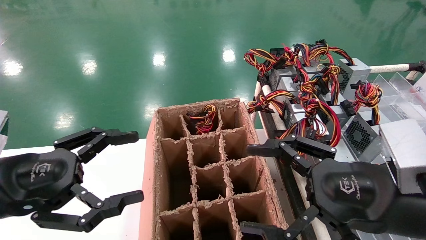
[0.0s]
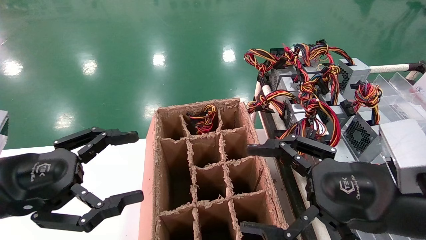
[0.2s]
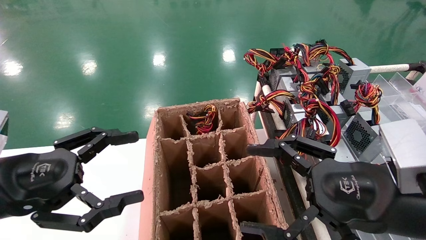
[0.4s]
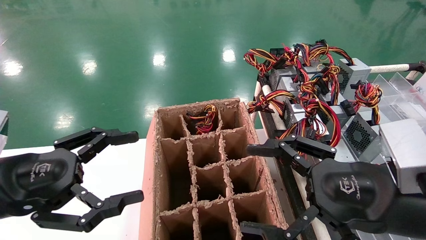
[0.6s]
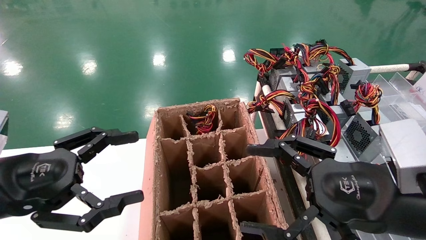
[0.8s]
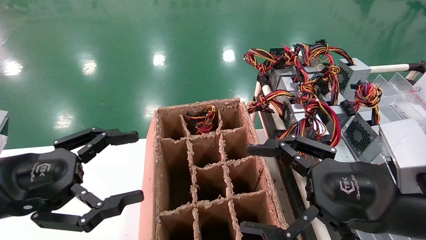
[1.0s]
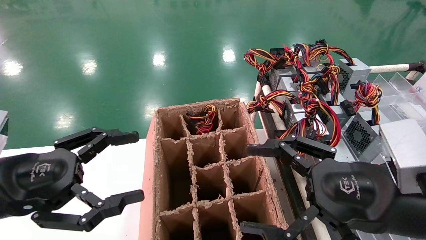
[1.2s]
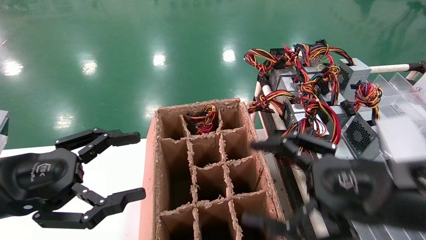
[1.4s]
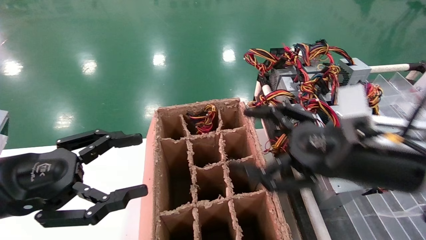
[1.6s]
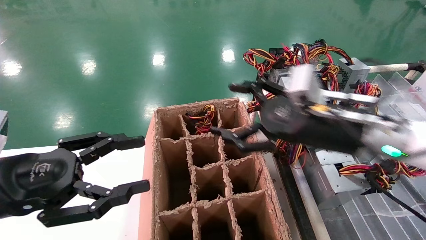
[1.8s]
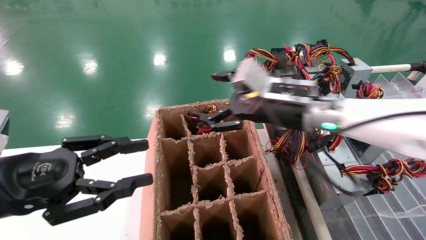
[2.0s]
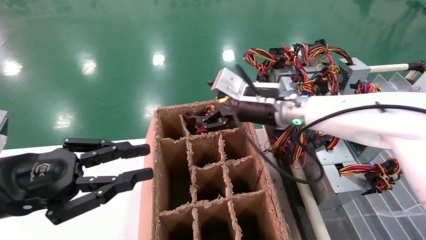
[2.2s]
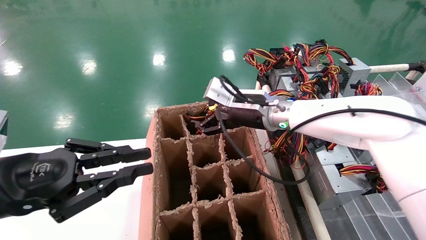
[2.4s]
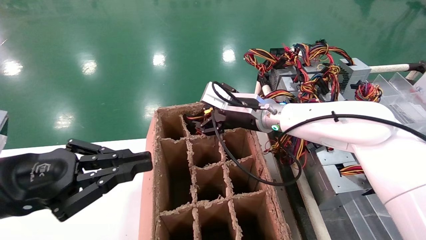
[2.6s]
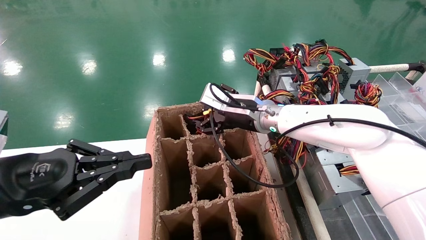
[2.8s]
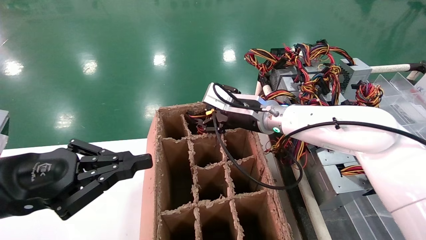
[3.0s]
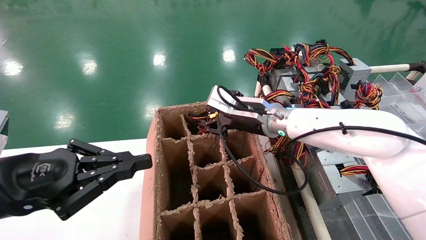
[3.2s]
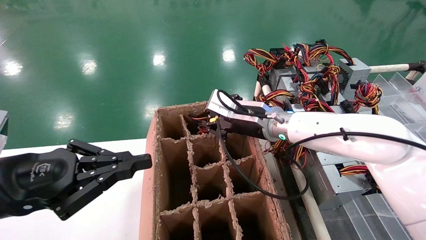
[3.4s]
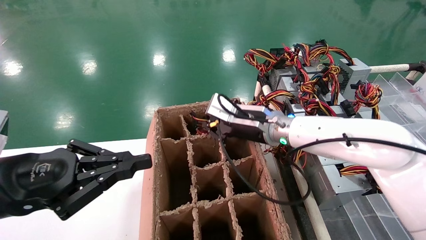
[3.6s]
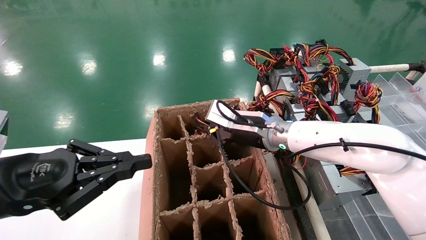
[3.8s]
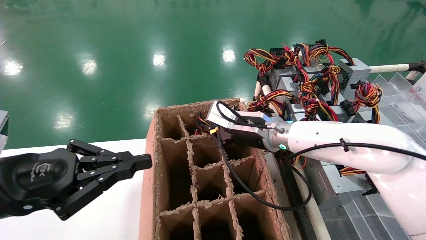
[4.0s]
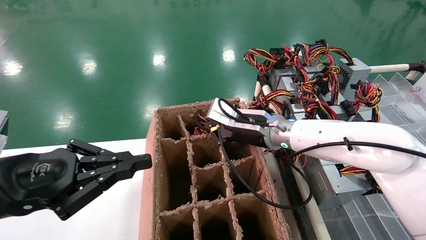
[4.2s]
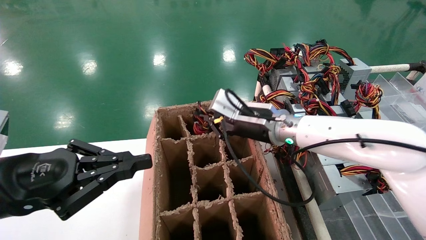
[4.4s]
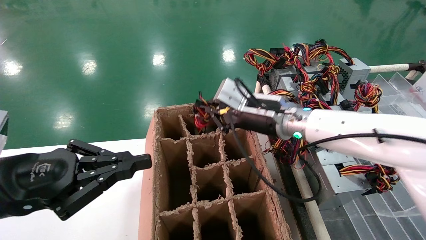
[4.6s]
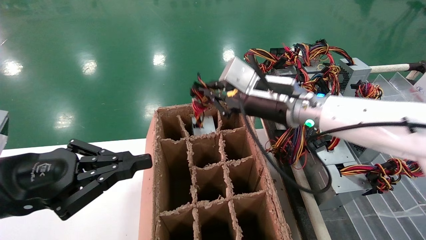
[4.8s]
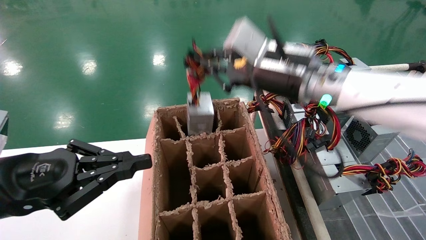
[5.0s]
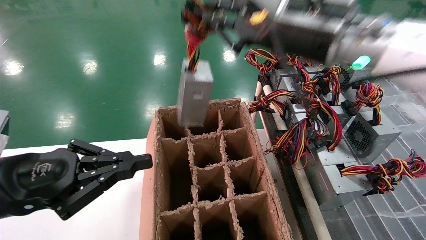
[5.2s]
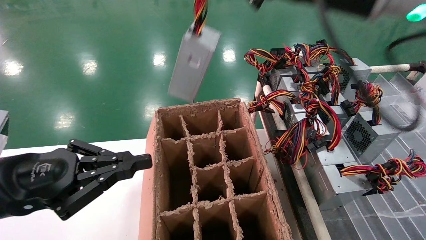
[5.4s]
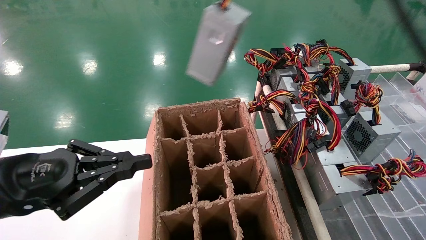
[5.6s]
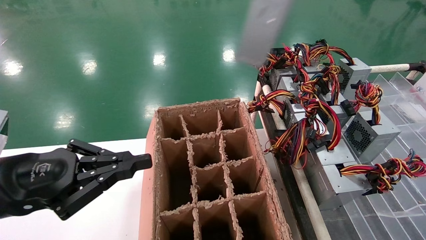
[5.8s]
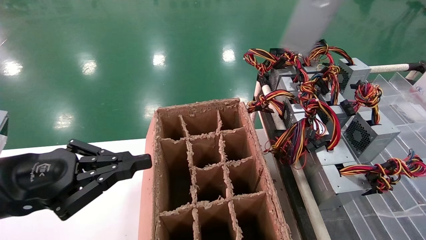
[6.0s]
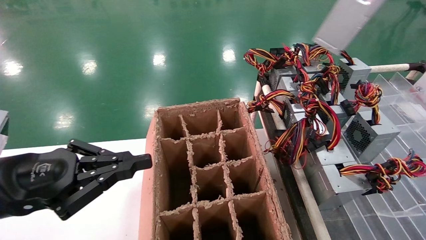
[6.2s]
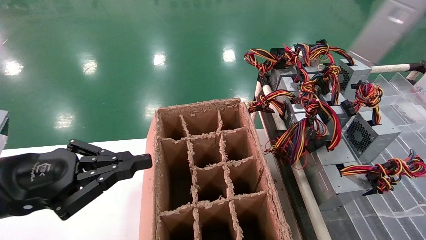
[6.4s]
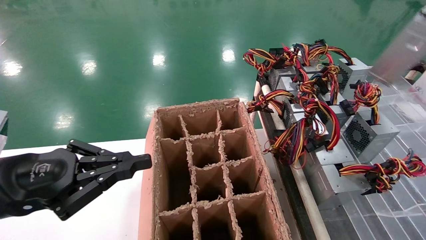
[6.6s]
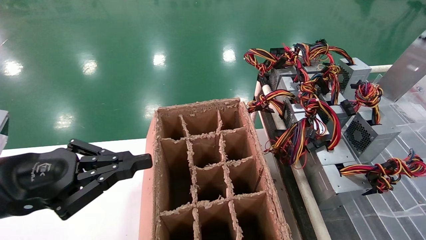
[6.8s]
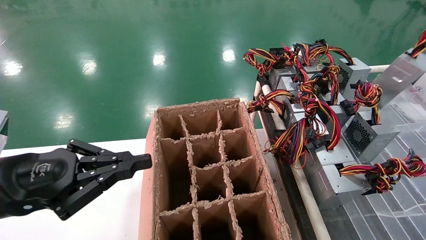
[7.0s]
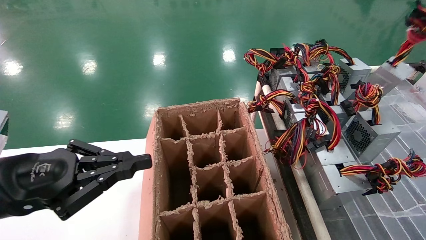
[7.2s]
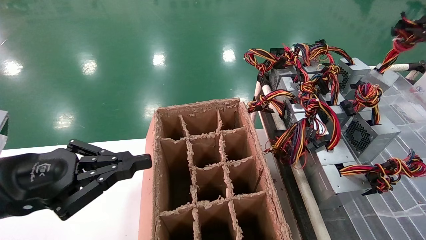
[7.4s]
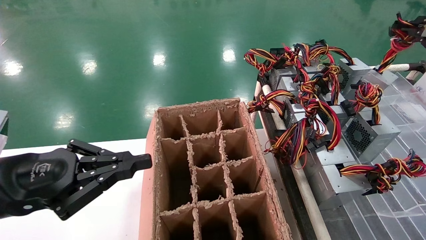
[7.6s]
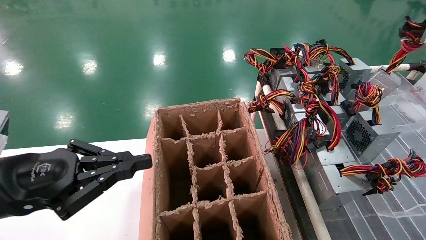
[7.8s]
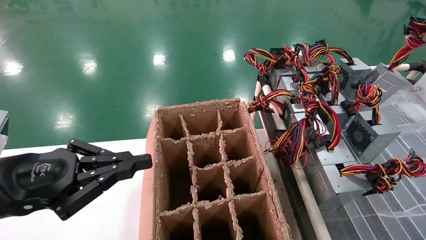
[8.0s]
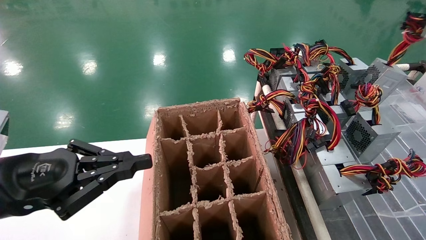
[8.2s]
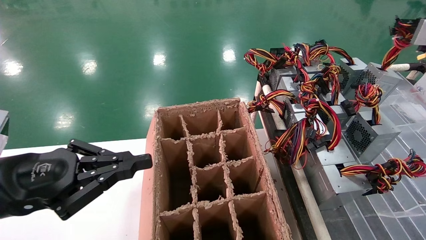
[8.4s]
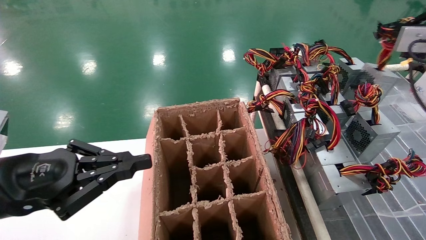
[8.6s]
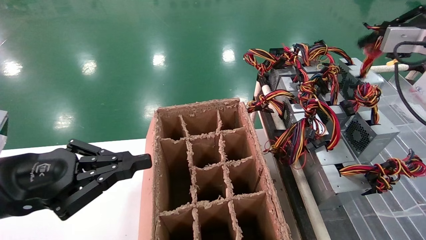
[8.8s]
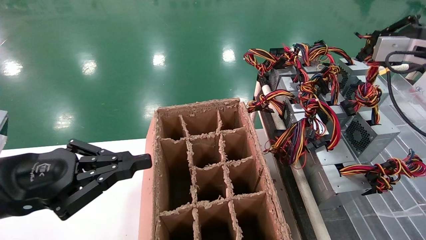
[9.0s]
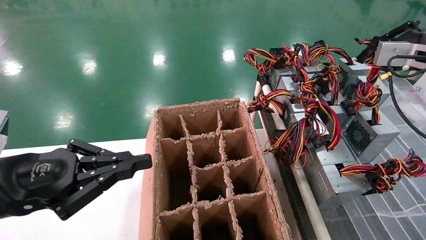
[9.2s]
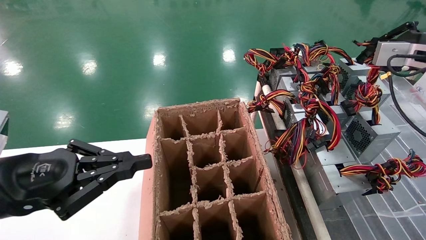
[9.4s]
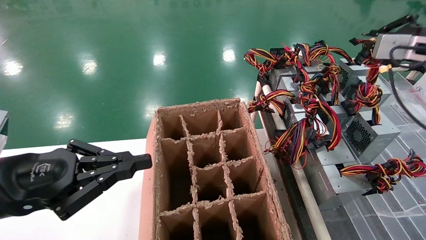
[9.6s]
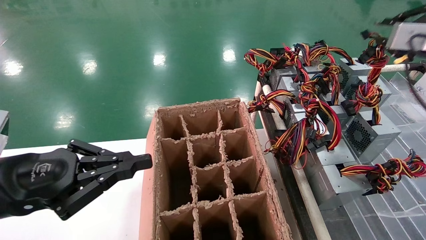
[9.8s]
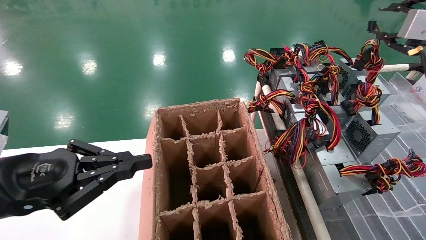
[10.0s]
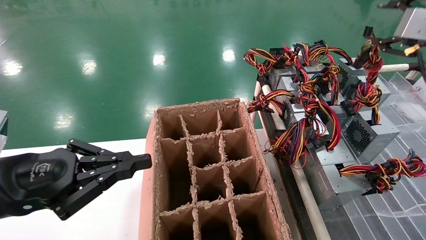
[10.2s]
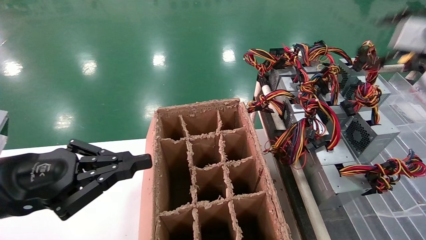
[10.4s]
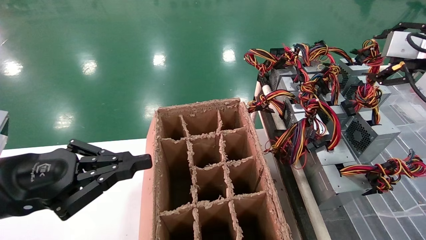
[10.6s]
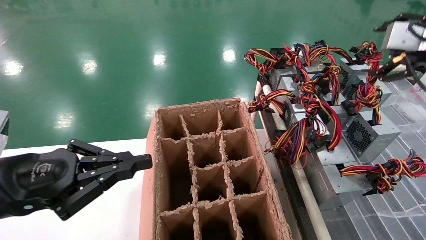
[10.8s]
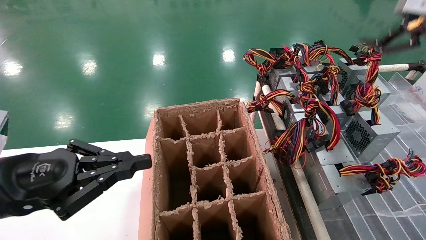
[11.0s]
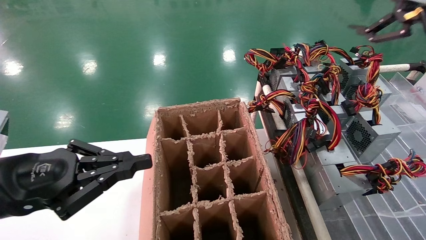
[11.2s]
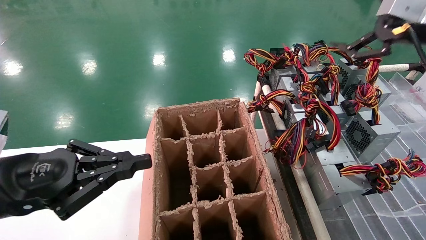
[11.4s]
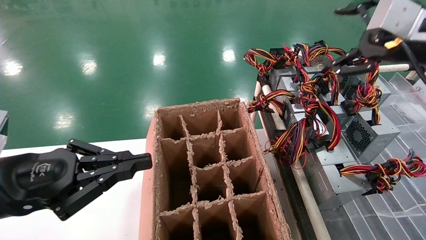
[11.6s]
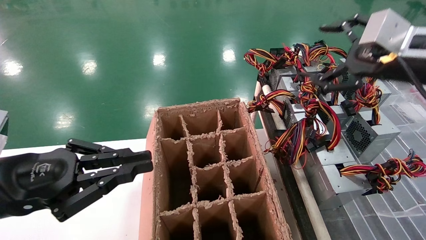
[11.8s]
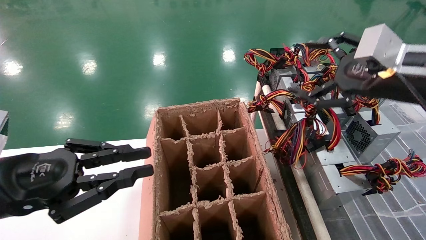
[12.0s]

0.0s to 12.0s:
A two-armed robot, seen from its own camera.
Step, 1.8s to 4.2s: Grab the main unit power supply from the containment box.
Step, 4.4s to 11.0s: Place the main unit power supply in the designated area.
0.0s to 1.6s: The right gripper goes about 10 cm forward.
1.6s to 3.0s: The right gripper goes about 20 cm forward and to the left; the left gripper closes up.
3.0s to 4.4s: The right gripper closes its fingers.
4.4s to 6.0s: The right gripper shifts some 40 cm upward, backward and to the right.
6.0s to 7.6s: The right gripper shifts some 25 cm to the right, forward and downward.
7.6s to 9.0s: The right gripper goes some 5 cm forward.
9.0s to 10.4s: The right gripper opens up.
10.4s to 12.0s: The right gripper is displaced to the left, backward and downward by approximately 15 cm, and opens up.

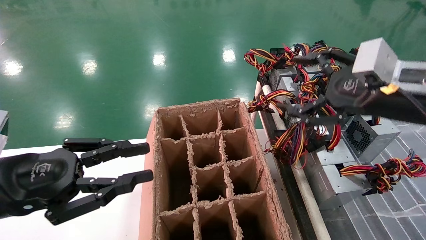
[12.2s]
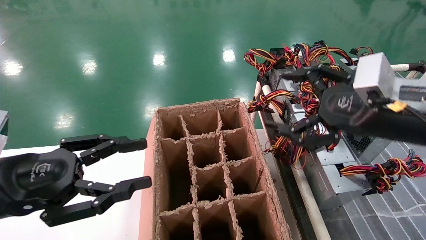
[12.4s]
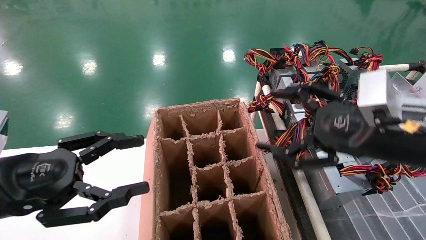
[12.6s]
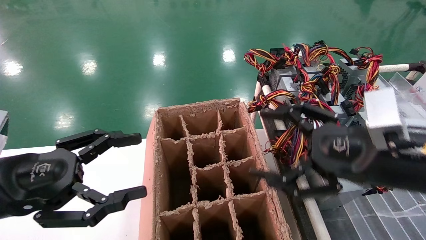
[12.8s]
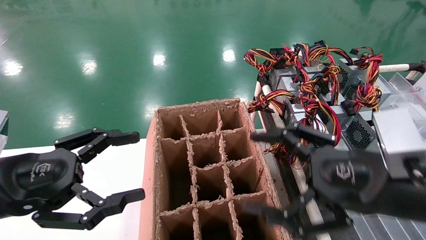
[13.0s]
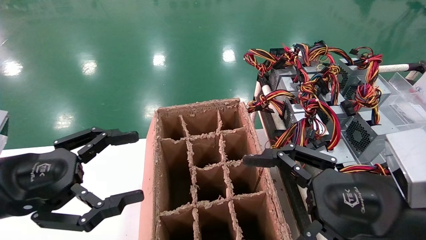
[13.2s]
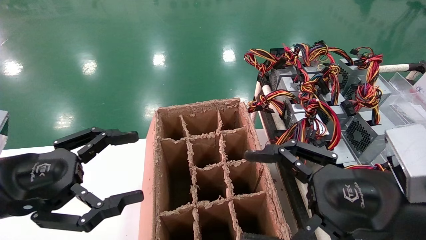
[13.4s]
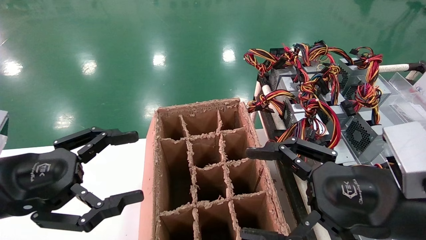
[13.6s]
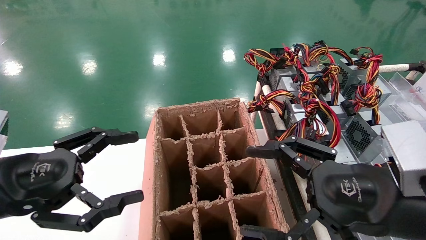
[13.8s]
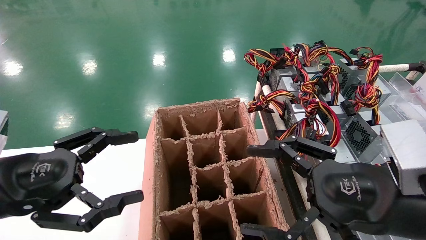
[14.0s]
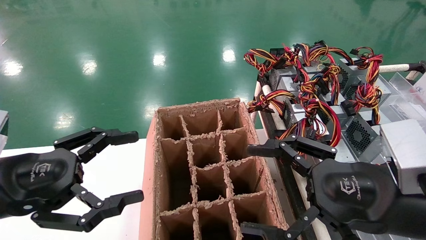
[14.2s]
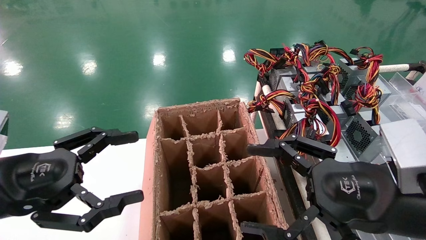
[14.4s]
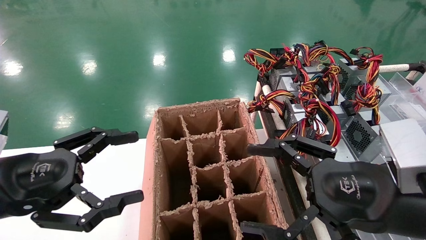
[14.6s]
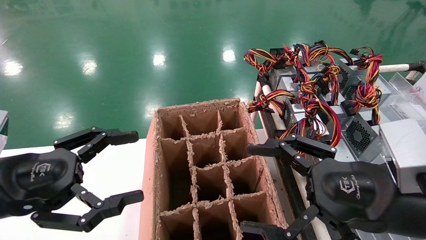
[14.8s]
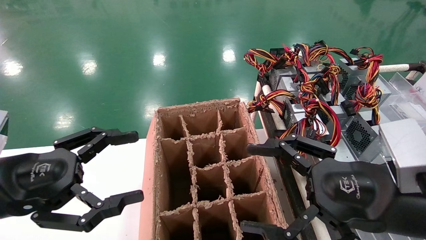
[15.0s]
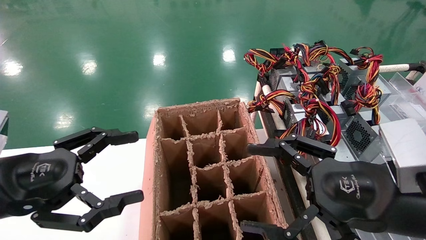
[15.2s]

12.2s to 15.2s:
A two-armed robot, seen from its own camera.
12.2s to 13.8s: The left gripper opens its fingers; the right gripper moves backward, downward and to the left, approximately 15 cm.
13.8s to 15.2s: Neither gripper changes place.

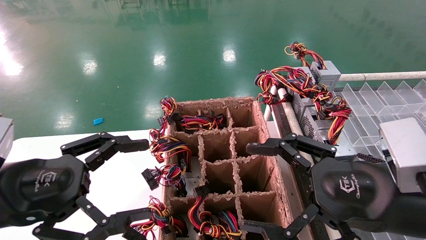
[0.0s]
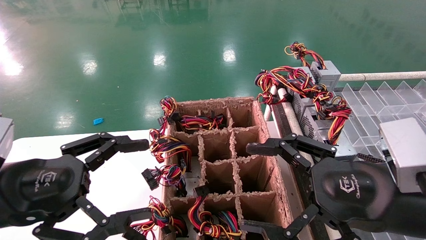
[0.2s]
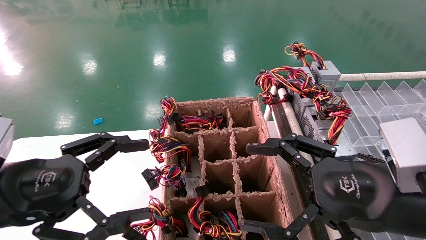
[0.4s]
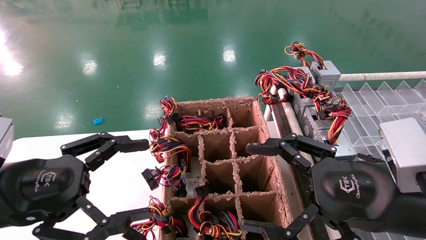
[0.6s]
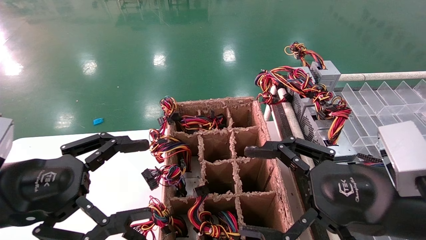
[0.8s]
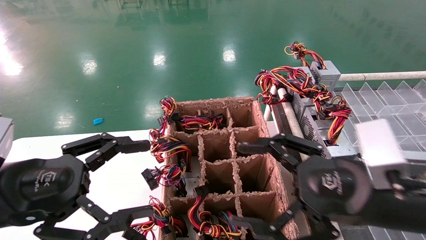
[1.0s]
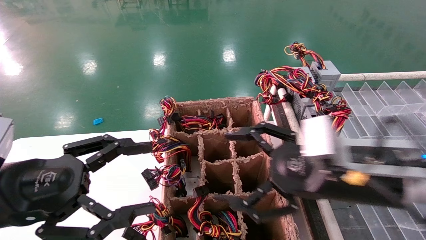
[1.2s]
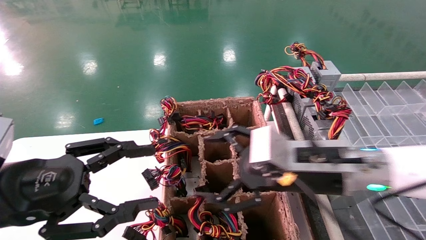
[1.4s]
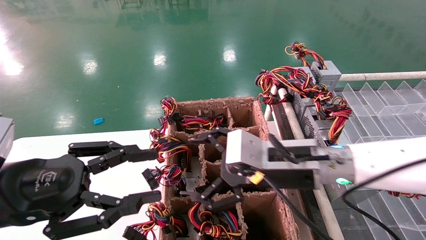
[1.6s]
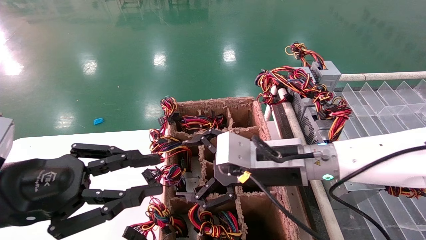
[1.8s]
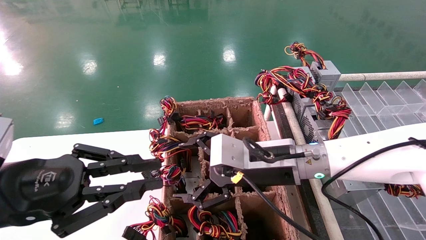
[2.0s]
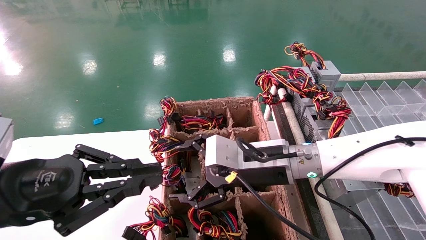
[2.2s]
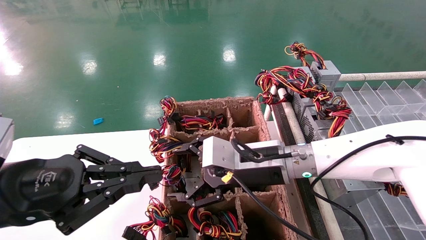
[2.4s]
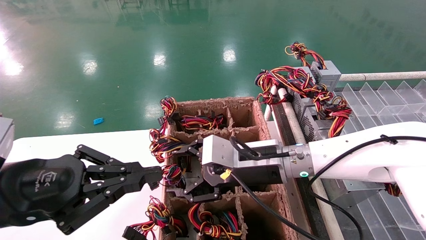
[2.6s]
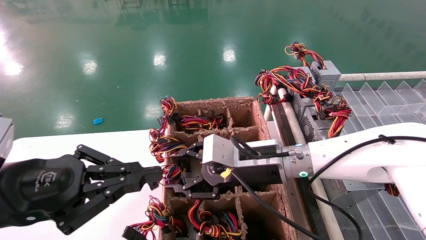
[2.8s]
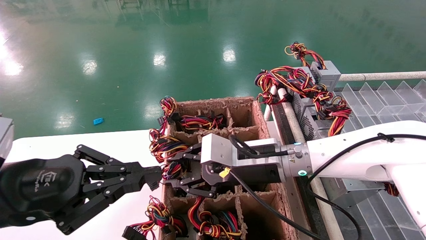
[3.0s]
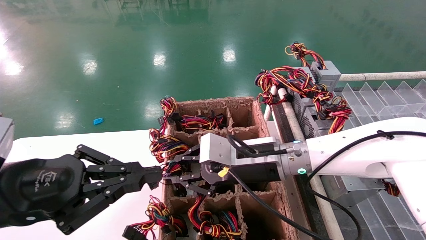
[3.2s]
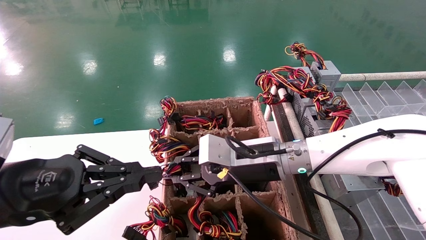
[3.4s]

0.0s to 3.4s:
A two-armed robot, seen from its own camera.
0.0s to 1.6s: The left gripper closes up, while the right gripper is displaced forward and to the left by approximately 15 cm.
1.6s to 3.4s: The right gripper moves about 5 cm, and closes its fingers. The left gripper closes its fingers.
